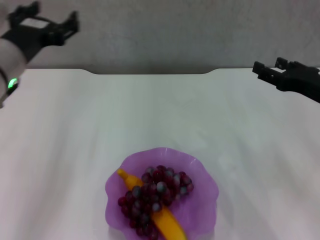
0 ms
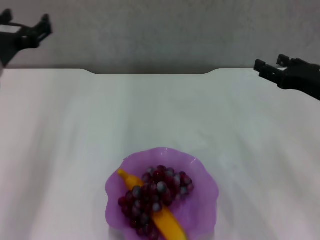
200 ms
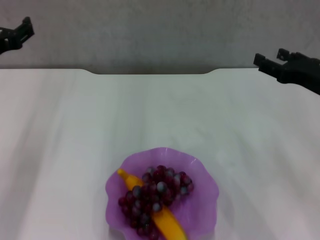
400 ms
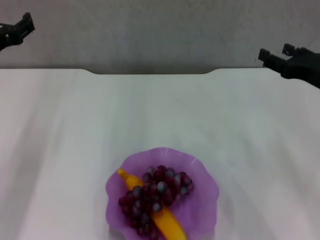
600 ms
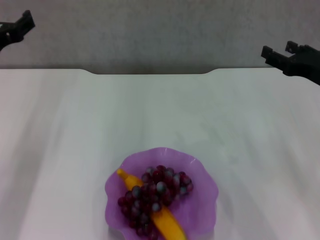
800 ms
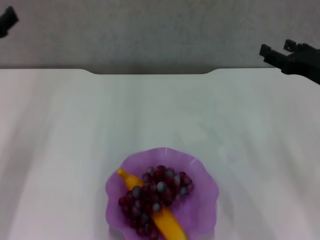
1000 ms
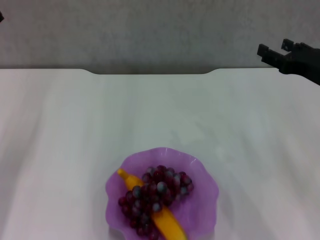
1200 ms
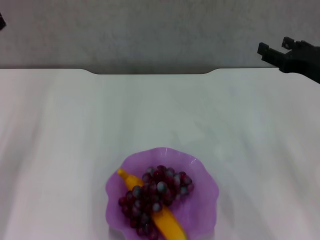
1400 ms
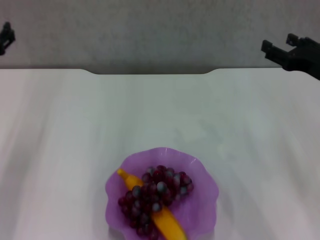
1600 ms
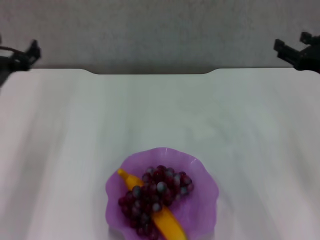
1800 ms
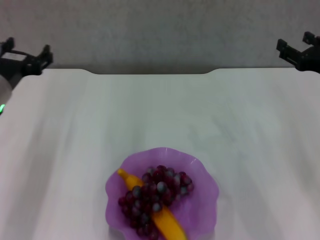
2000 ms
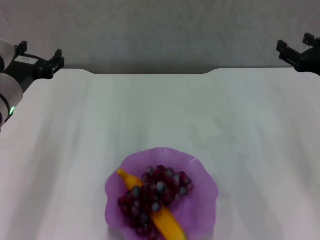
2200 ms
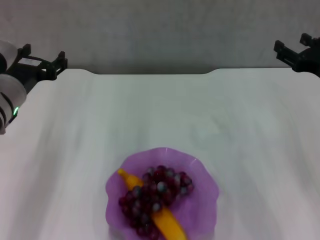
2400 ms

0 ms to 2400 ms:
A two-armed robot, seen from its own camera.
0 ms to 1200 ms: The left gripper moves to the left, approximately 10 cm.
1200 ms to 2400 ms: The left gripper is displaced to the right by about 5 cm.

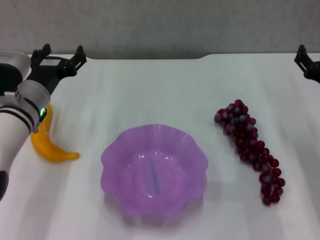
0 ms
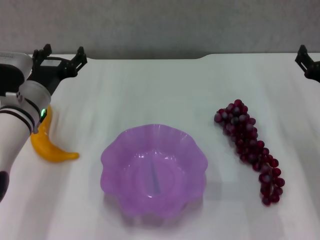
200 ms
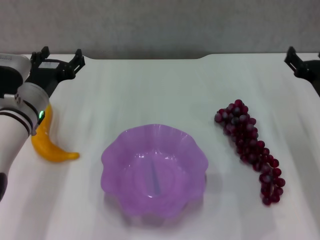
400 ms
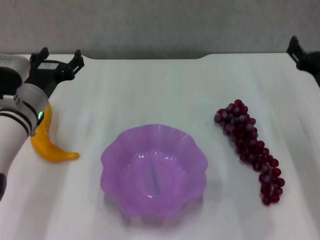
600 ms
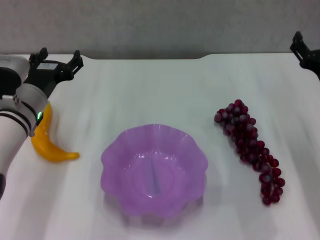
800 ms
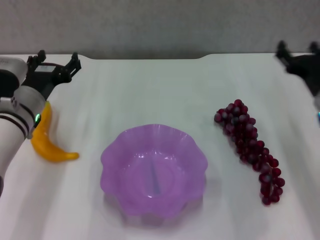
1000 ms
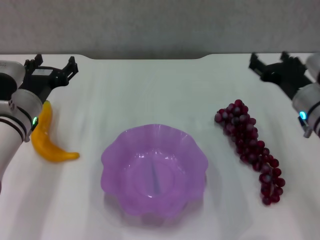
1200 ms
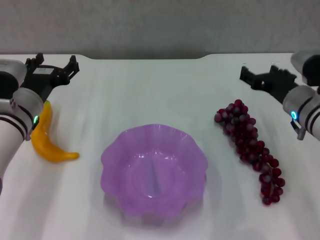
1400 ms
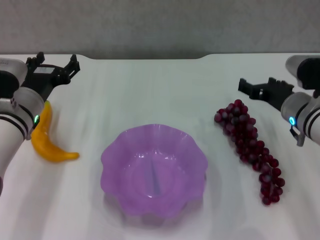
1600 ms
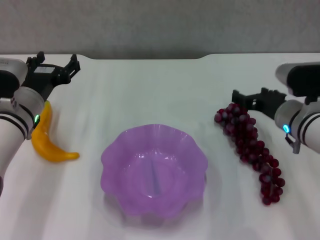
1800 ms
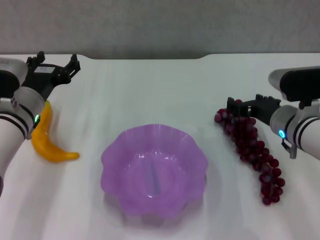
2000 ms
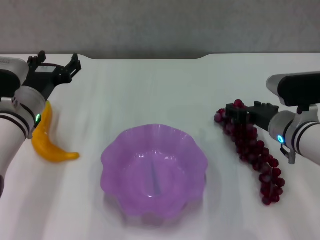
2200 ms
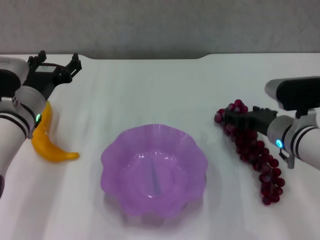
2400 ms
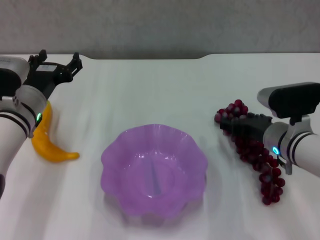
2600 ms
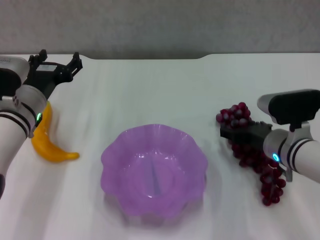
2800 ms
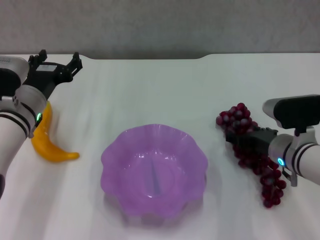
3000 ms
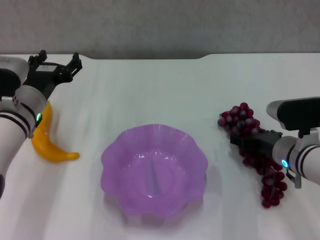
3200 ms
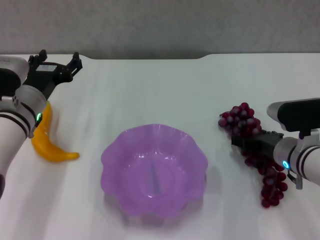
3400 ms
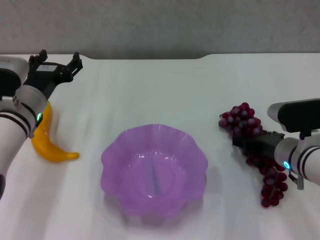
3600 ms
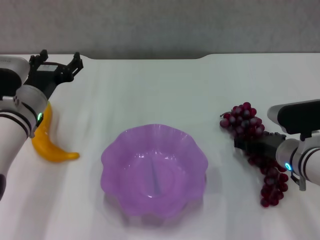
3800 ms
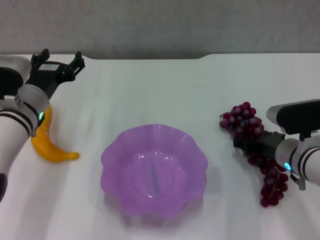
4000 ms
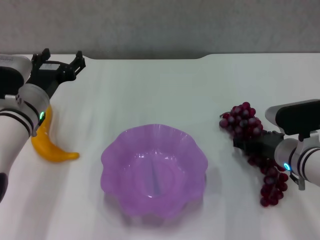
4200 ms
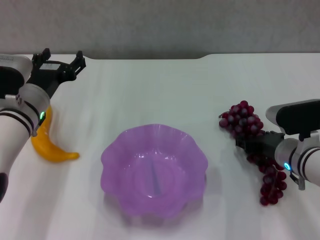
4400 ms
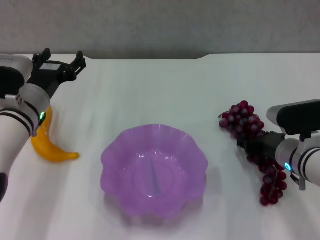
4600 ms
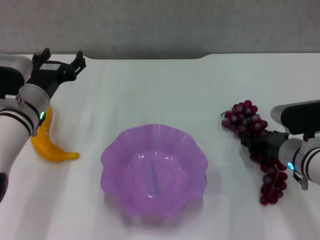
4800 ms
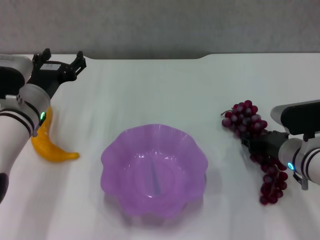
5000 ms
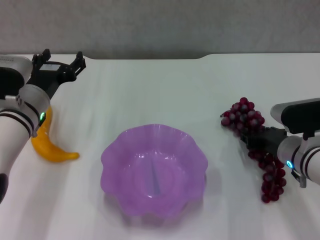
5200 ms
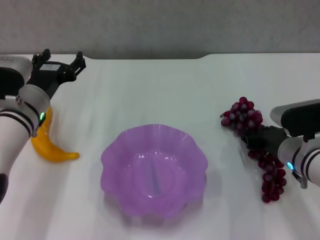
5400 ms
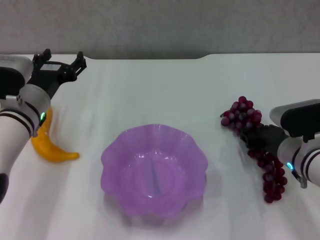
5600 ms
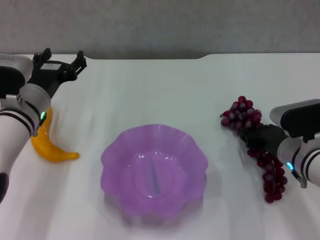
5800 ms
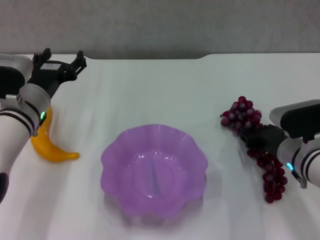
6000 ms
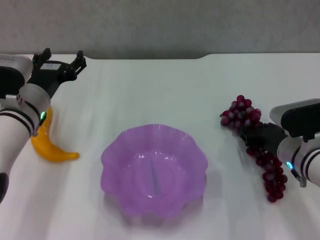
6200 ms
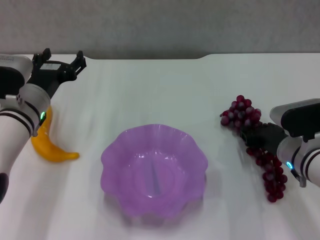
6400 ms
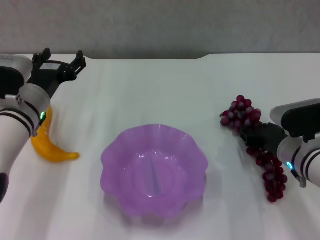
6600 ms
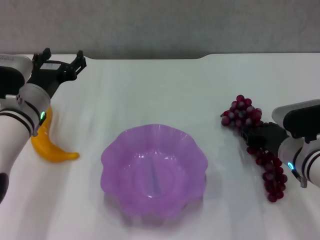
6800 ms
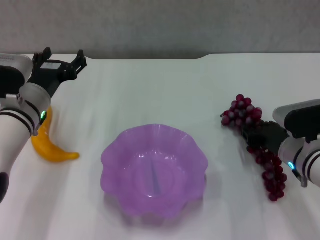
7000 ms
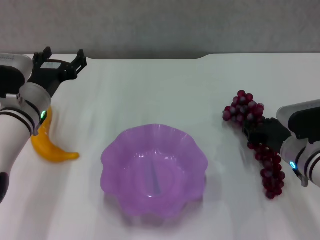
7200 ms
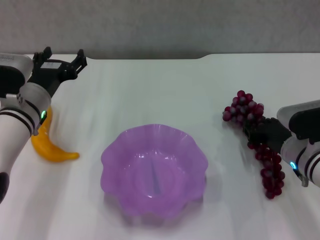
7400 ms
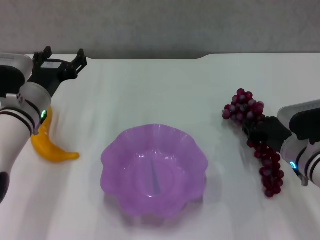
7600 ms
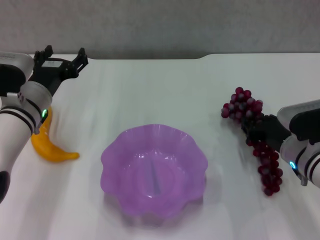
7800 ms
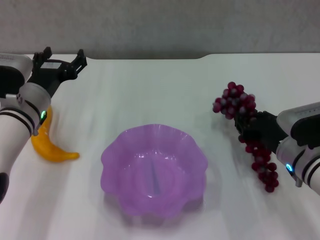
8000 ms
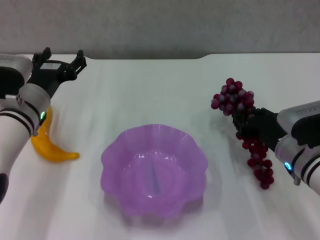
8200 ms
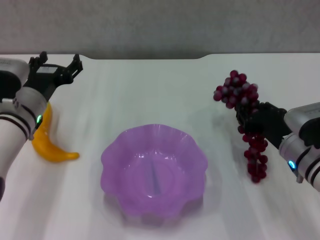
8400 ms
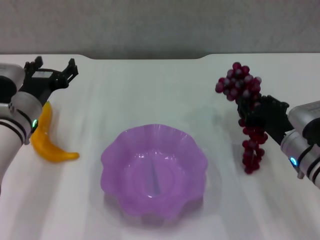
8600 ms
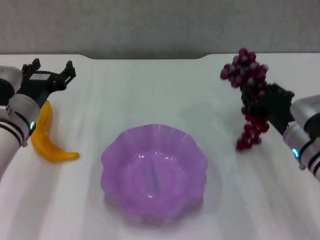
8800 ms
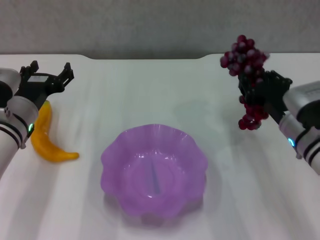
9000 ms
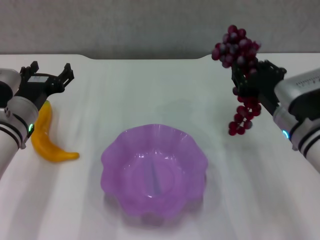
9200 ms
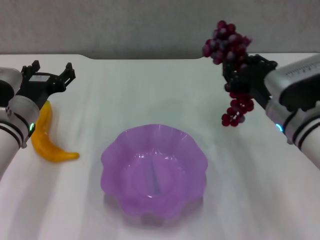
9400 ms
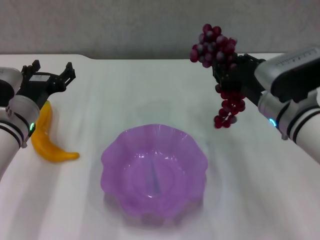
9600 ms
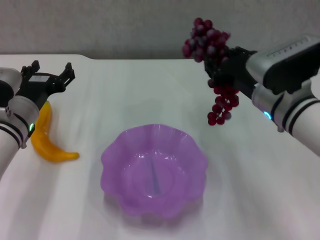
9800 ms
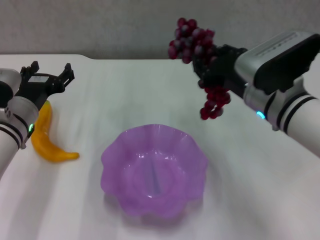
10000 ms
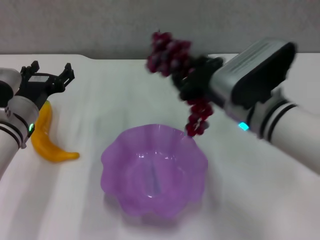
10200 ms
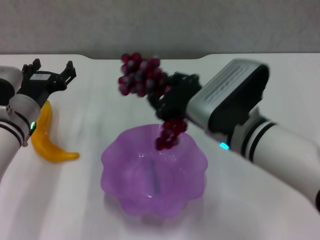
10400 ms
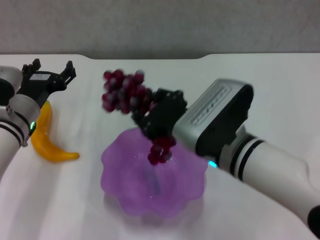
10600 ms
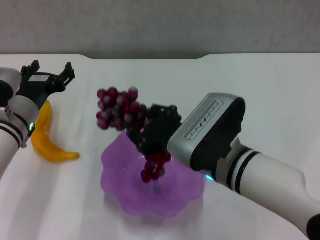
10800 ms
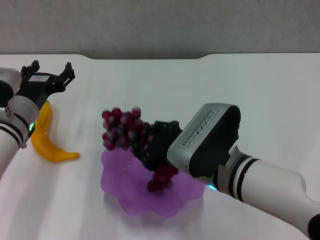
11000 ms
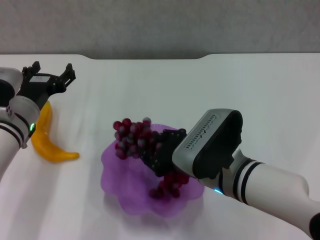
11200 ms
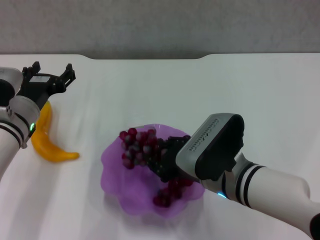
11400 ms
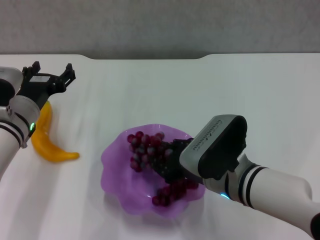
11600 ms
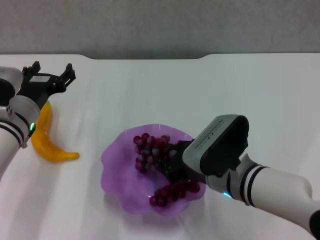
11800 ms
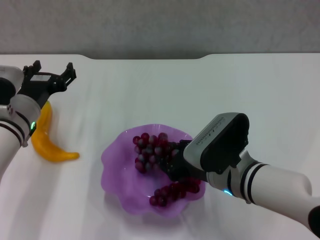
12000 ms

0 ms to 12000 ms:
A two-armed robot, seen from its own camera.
Step, 0 ms to 5200 ms: Grasp the grape with right gripper.
0 ms to 1600 ms: The right gripper shifts roughly 5 cm to the left.
1600 ms to 3000 ms: The right gripper shifts by approximately 5 cm.
3000 ms to 4400 ms: The grippers make only small movements.
4400 ms to 6000 ms: The right gripper closes up.
6000 ms to 7600 ms: The grippers stay close to where they were, moving slightly.
7600 ms to 9000 ms: The right gripper ends up approximately 5 cm from where it was.
9000 ms to 10400 ms: The right gripper heads to the left and upward, covering some 15 cm.
10400 ms to 12000 ms: The right gripper heads downward, covering roughly 5 cm.

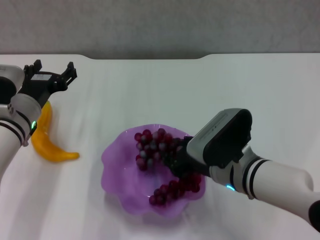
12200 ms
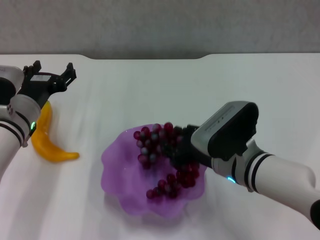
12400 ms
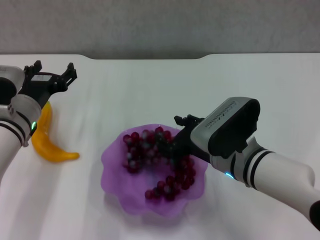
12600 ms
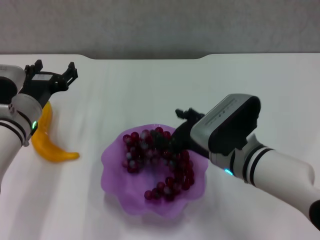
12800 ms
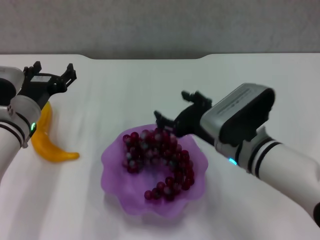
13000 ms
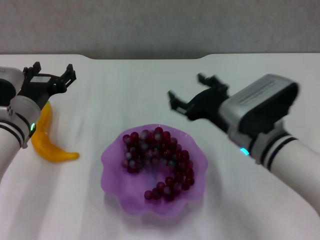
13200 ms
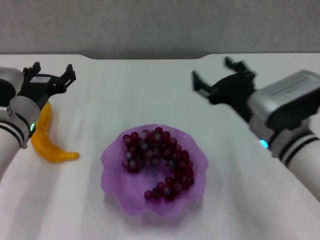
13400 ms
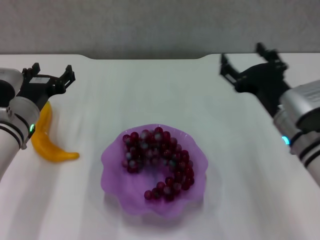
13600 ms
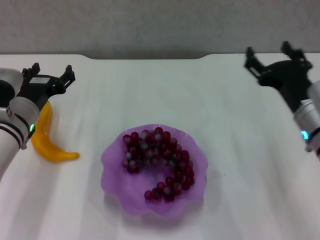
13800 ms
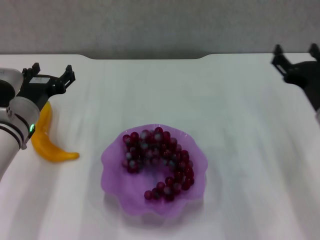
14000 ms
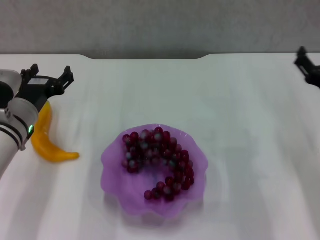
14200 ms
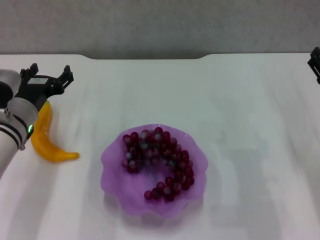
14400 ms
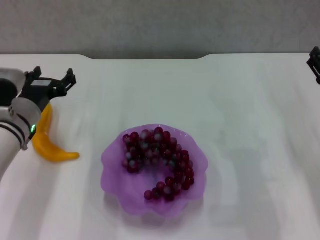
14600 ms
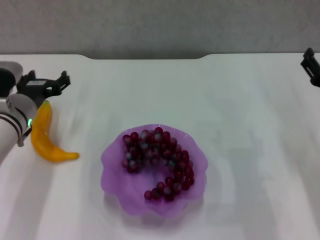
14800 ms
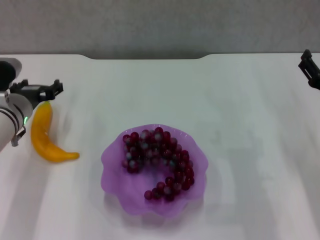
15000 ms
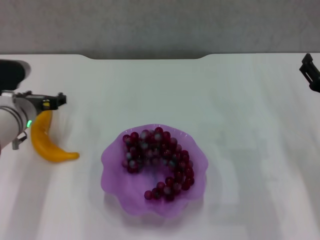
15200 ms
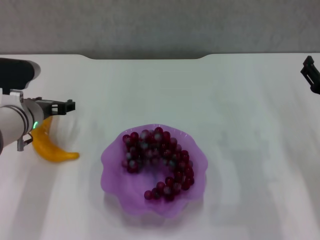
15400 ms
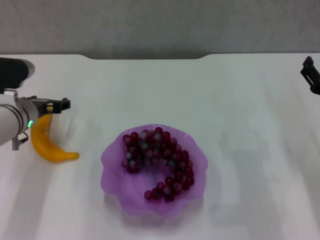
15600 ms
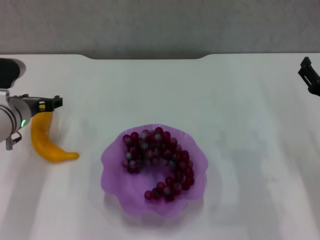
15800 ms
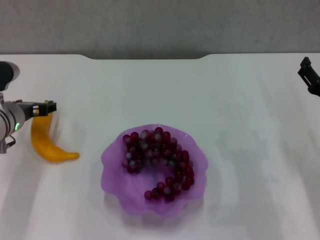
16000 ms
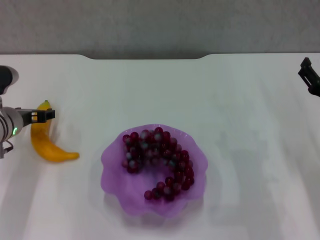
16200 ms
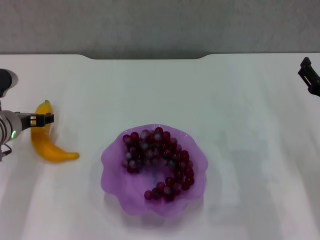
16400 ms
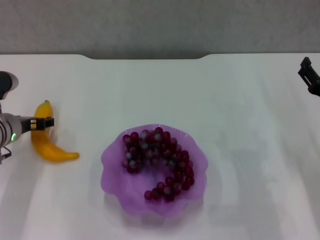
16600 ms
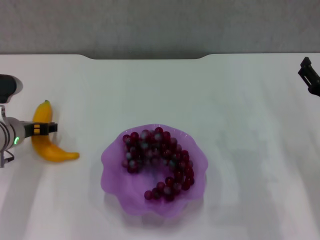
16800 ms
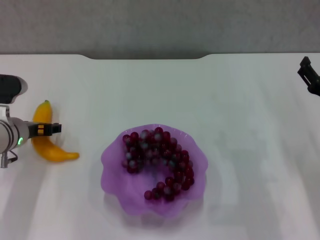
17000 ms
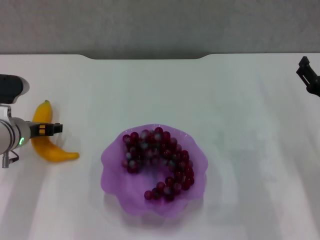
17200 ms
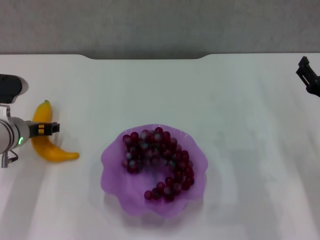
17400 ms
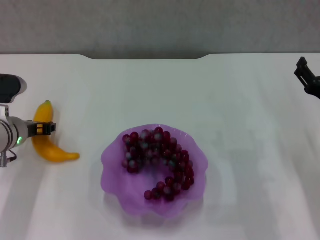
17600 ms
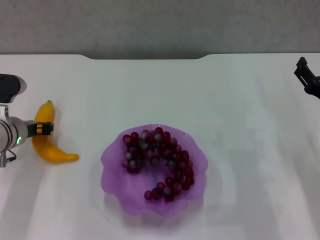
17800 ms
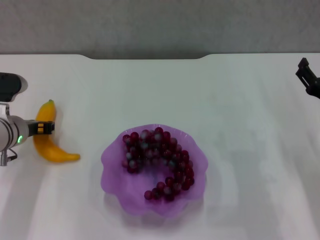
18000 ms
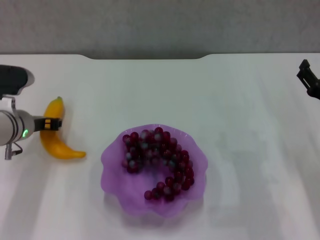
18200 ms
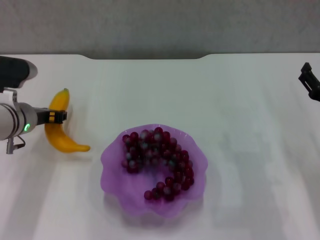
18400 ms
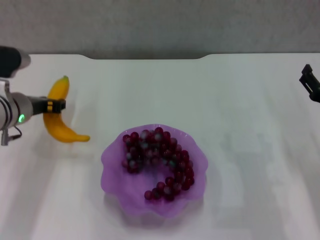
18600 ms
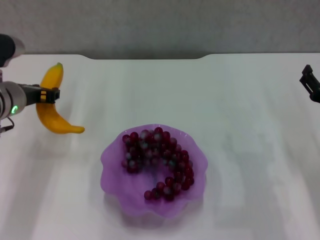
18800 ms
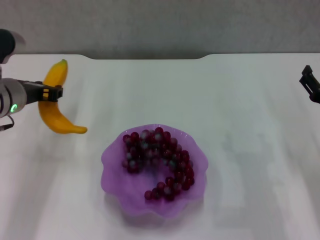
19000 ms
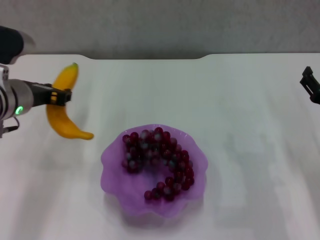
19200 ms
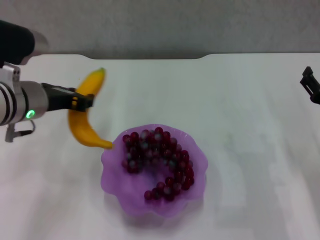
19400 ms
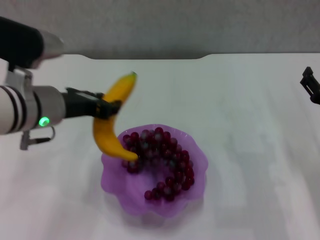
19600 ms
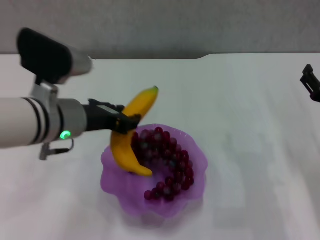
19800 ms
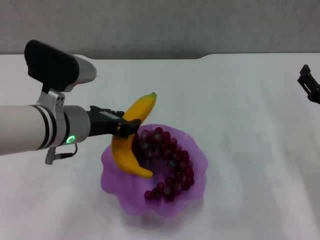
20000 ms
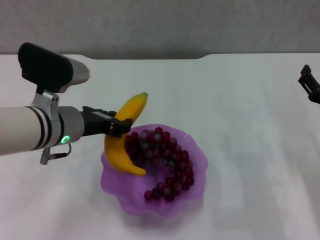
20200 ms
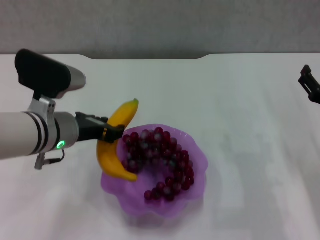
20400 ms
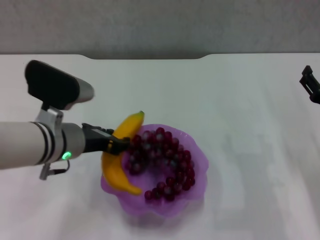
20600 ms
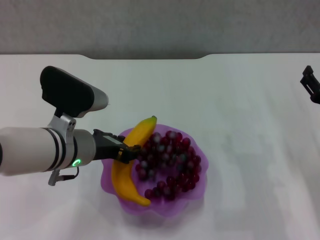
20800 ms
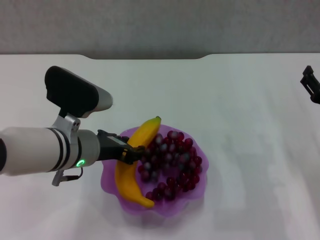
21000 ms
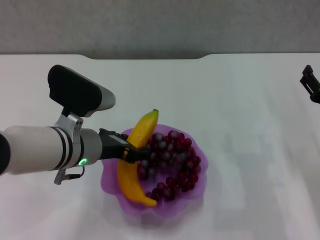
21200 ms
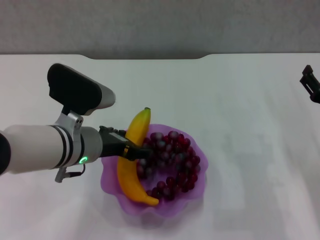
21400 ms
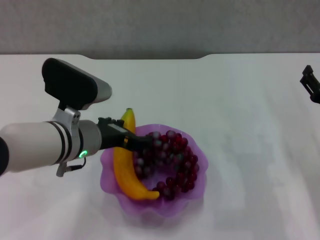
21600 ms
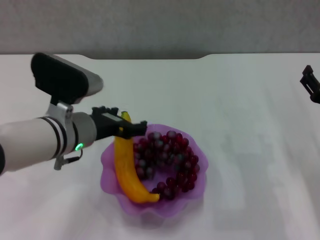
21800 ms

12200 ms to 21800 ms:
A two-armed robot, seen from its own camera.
Step, 12800 ms to 18000 ms: Grasp the banana with left gripper.
Step, 18200 ms to 21200 ms: Place the banana in the purple plate with left gripper.
12200 ms to 13800 ms: The right gripper travels to the right by approximately 10 cm, and opens up.
13800 ms to 15400 ms: The right gripper travels to the right by roughly 5 cm.
15400 ms to 17000 ms: The grippers stay close to where they were, moving slightly.
17000 ms to 18600 ms: The left gripper is displaced upward by roughly 5 cm, and closes.
18600 ms to 20200 ms: The left gripper moves to the right and backward, some 10 cm.
20200 ms to 21800 ms: The left gripper opens.
